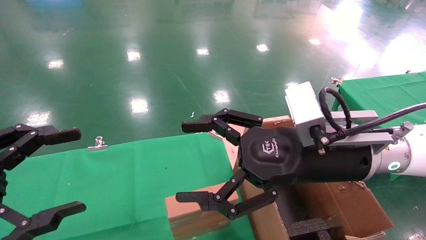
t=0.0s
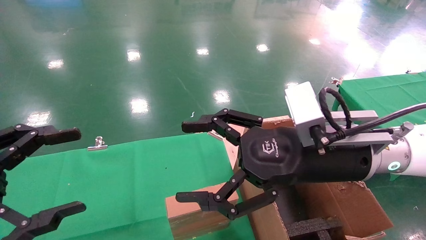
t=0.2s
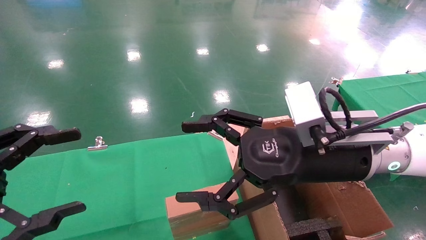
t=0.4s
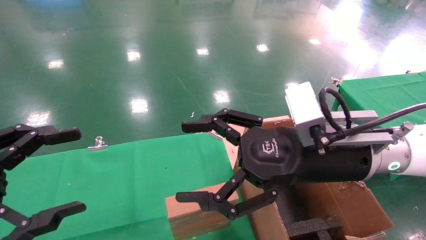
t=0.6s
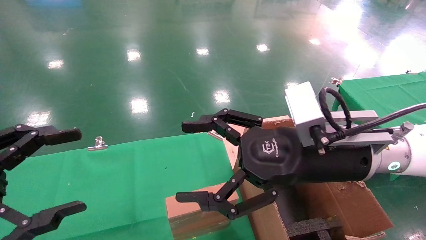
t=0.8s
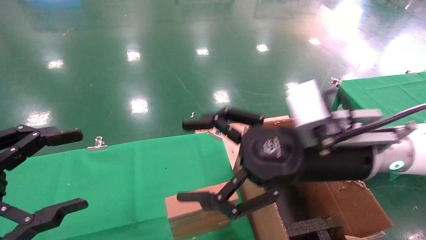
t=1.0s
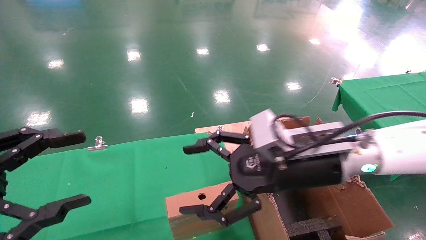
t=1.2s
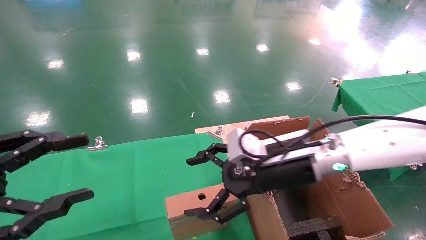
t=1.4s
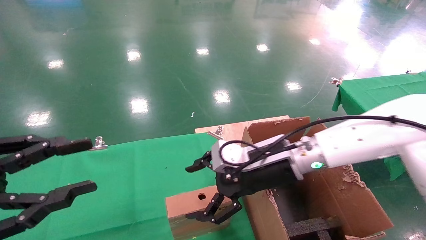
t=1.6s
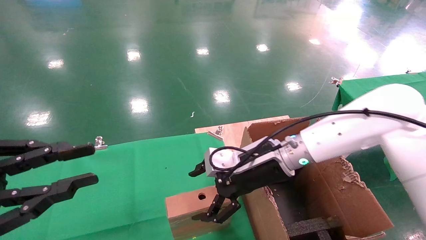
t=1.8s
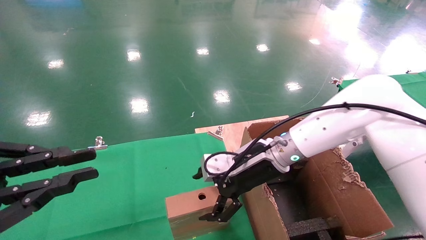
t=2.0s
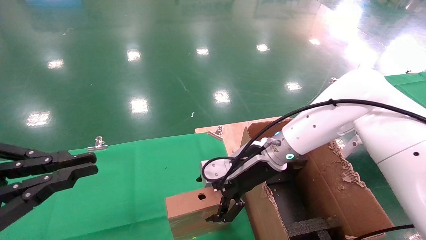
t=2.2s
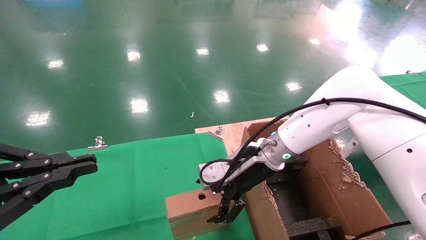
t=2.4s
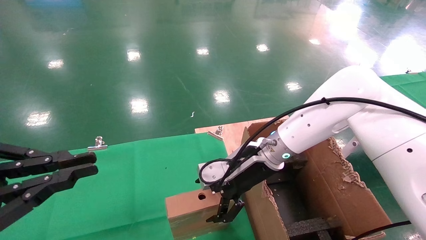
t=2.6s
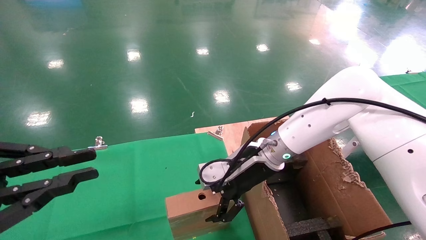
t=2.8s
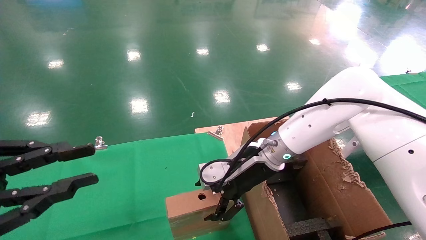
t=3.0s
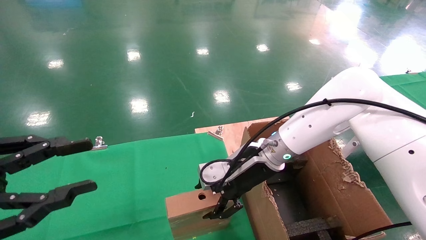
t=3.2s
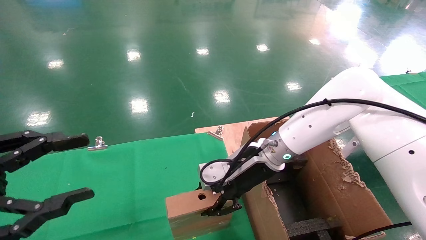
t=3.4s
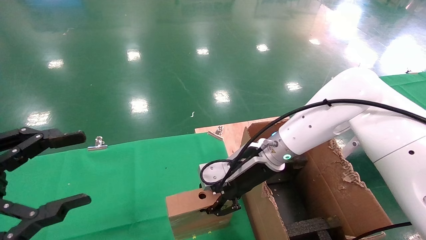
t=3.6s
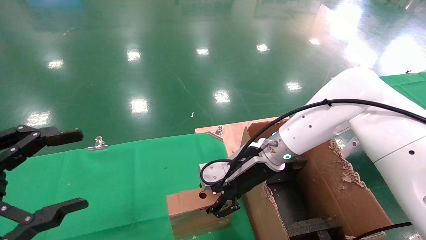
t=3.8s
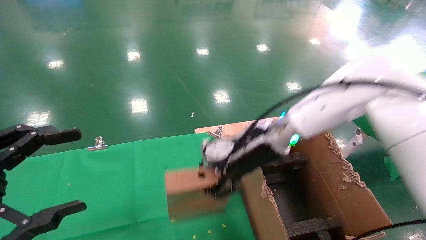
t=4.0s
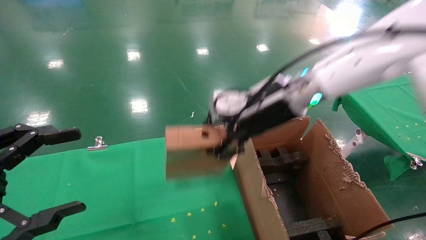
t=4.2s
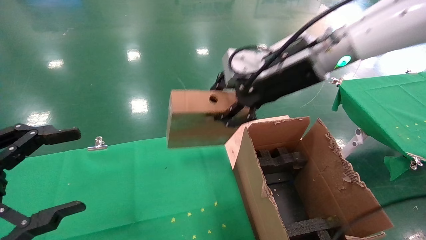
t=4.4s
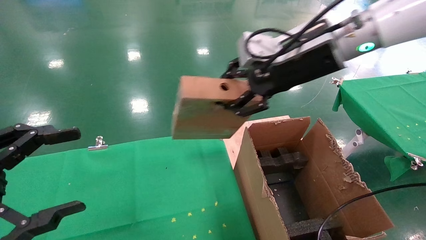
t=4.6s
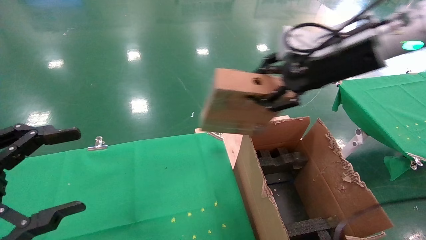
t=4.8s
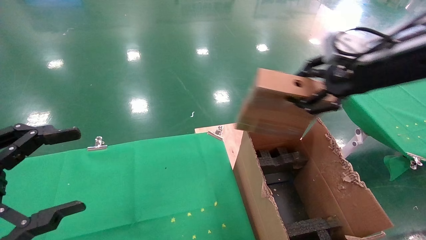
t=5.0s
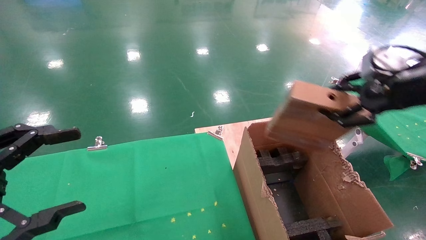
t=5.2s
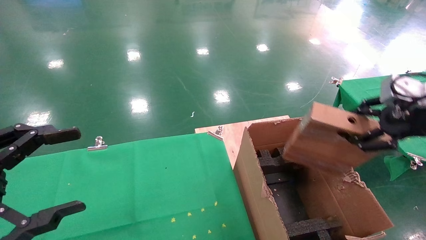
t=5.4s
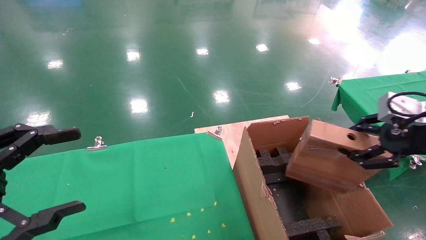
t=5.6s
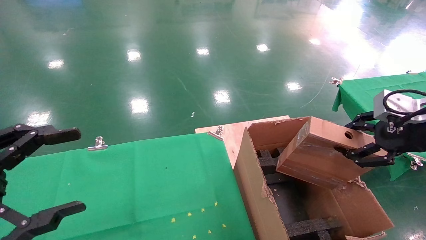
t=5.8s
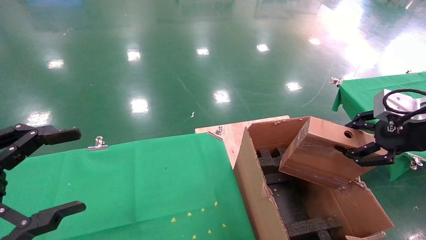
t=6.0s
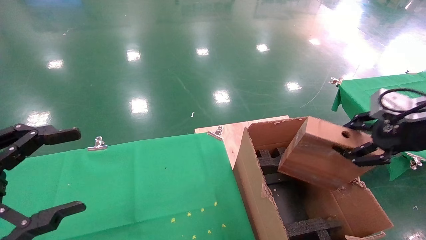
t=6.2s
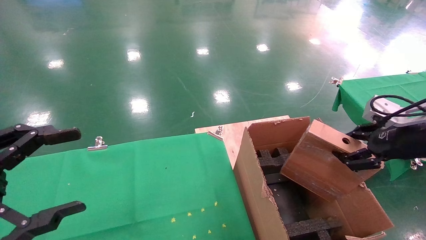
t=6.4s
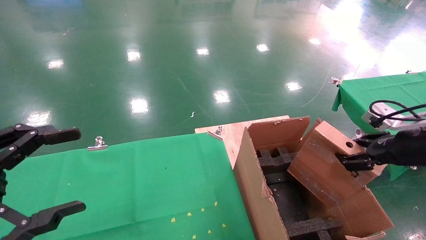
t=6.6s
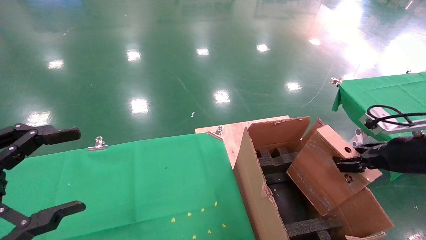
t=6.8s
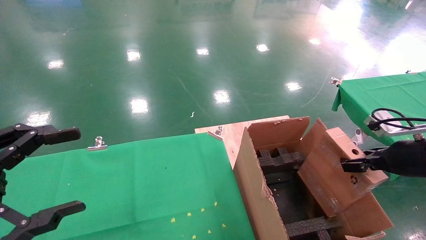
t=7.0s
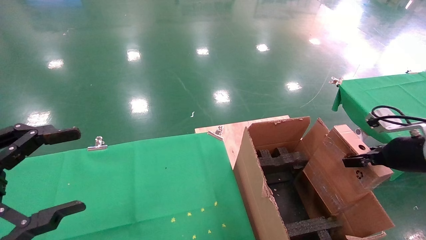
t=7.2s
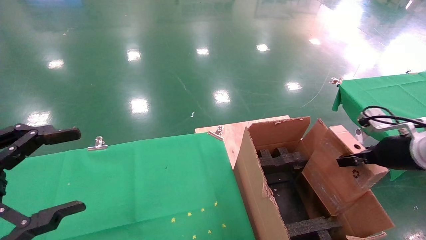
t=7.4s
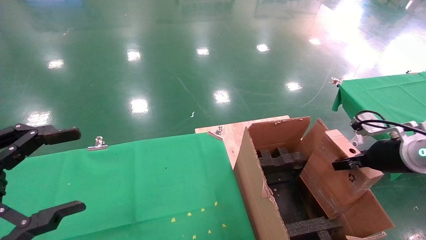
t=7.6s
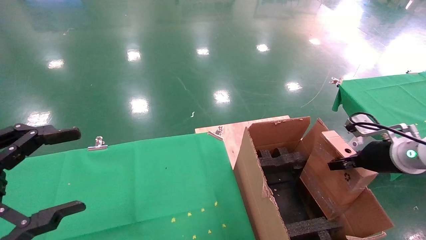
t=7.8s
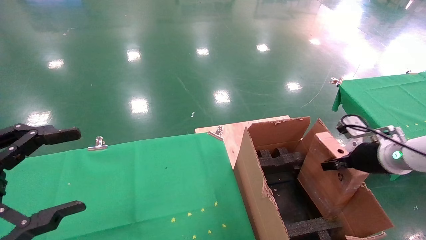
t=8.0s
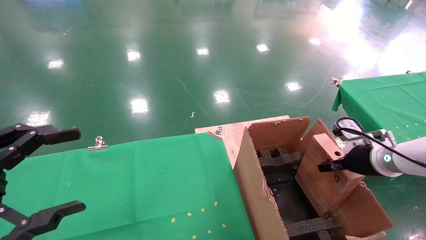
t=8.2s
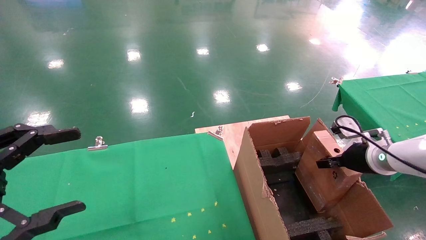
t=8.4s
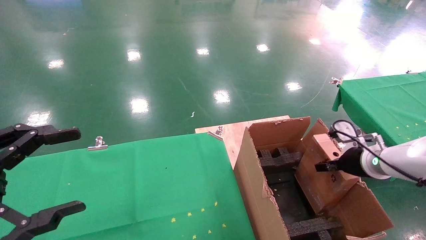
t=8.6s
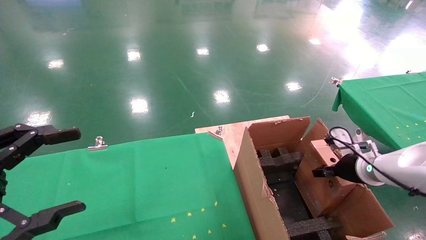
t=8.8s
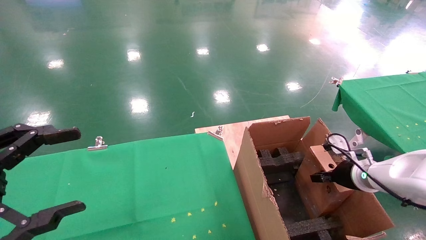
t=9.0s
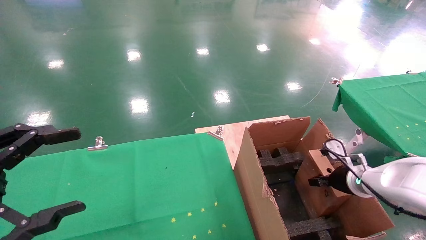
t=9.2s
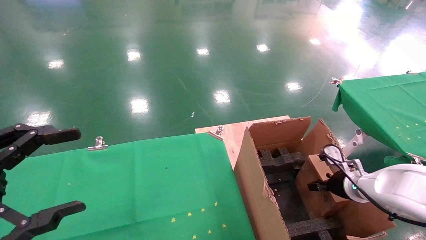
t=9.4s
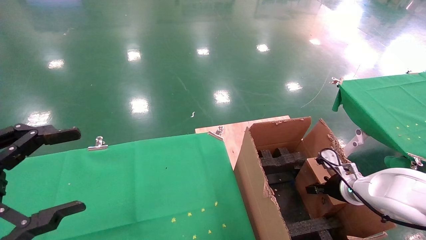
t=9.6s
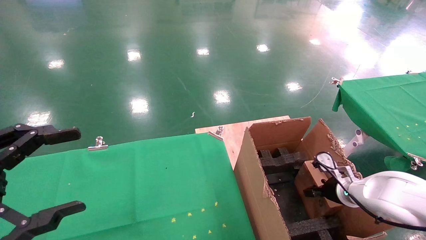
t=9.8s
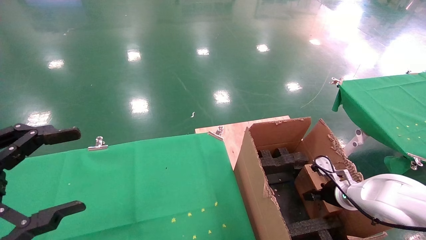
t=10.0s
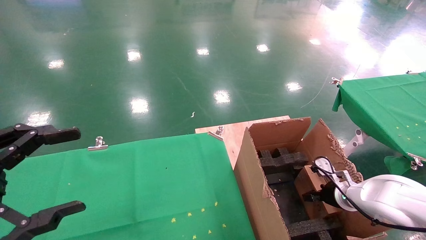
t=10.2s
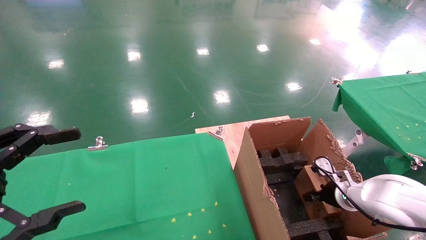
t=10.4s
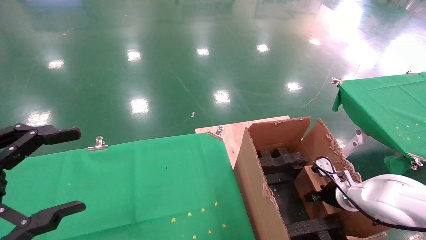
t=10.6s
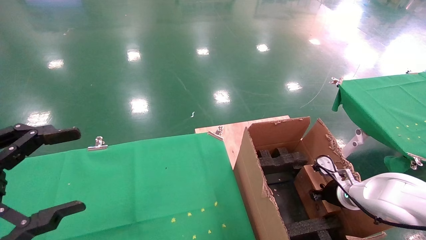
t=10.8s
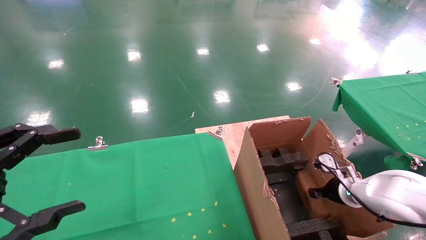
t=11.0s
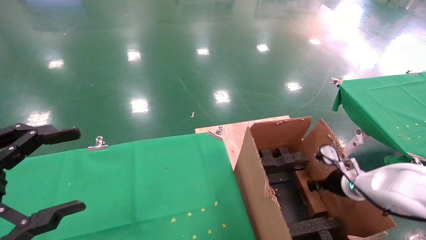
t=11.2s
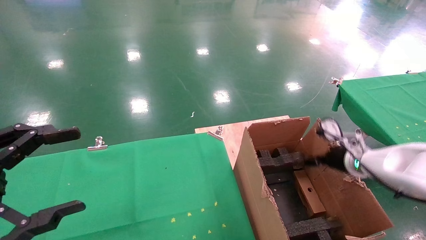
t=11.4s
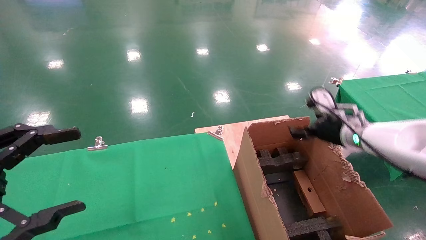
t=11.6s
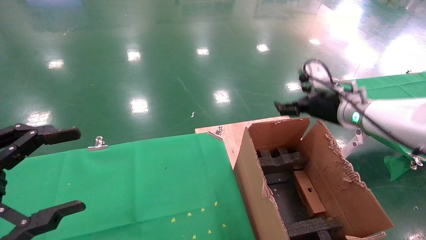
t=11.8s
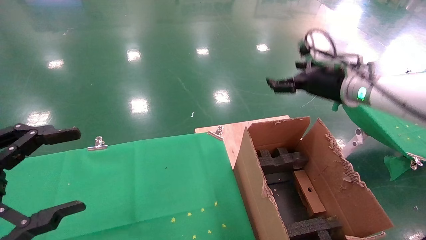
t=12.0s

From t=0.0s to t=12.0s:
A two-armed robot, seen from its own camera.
Task of the whole recording: using a robotic arm to pick up a cardboard box and palace it the carton.
Step, from t=1.2s to t=3.4s: Pick up the mouse and the power cord paper box.
Step, from t=3.6s to t=11.6s: Place the mouse and the power cord paper box into the container.
From t=0.0s to t=1.6s: The left gripper closes up. The right gripper goes roughly 10 cm forward and downward.
From t=1.6s to t=3.0s: The right gripper moves approximately 5 cm. Meanwhile the left gripper closes.
From t=3.0s to t=4.4s: The left gripper opens, while the right gripper goes approximately 20 cm upward, and closes up.
From t=4.4s to t=6.0s: The right gripper shifts roughly 25 cm to the right and backward.
From t=6.0s to t=7.6s: The right gripper shifts approximately 10 cm downward and forward.
From t=7.6s to t=9.0s: The right gripper travels downward and forward by some 10 cm.
From t=9.0s to t=10.4s: The right gripper heads downward, covering roughly 10 cm.
From t=10.4s to t=12.0s: The right gripper heads upward, covering about 30 cm, and opens.

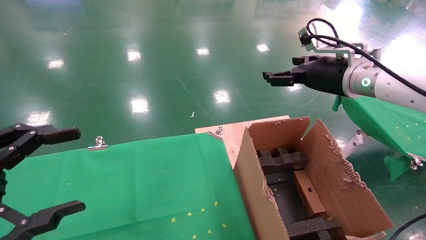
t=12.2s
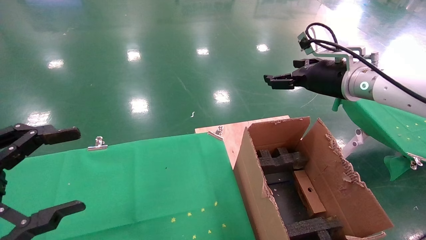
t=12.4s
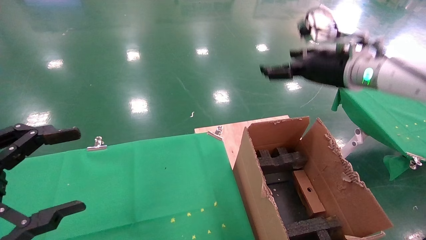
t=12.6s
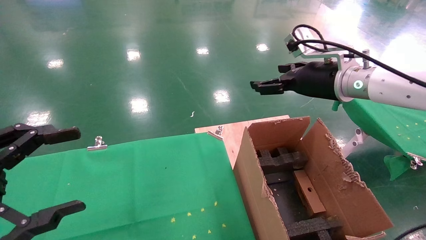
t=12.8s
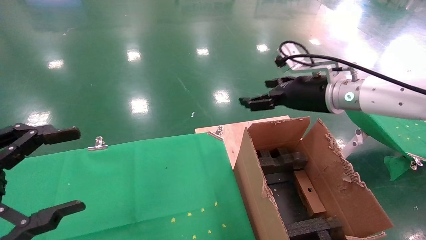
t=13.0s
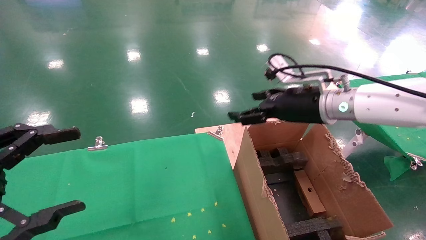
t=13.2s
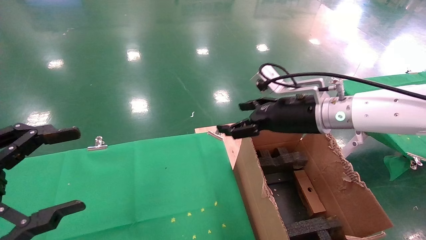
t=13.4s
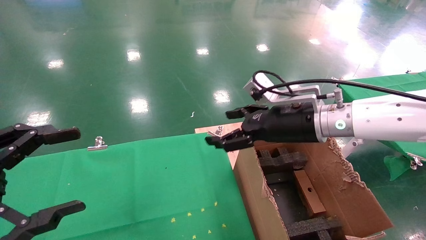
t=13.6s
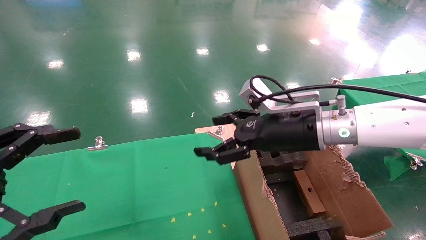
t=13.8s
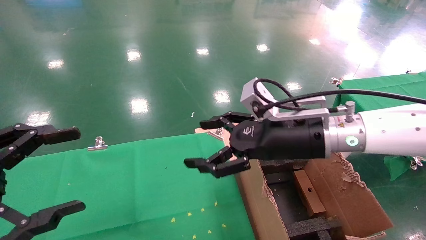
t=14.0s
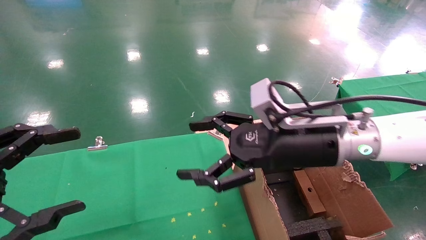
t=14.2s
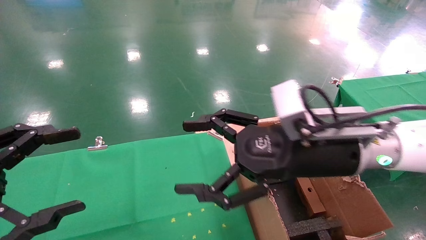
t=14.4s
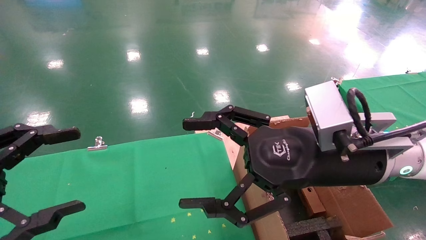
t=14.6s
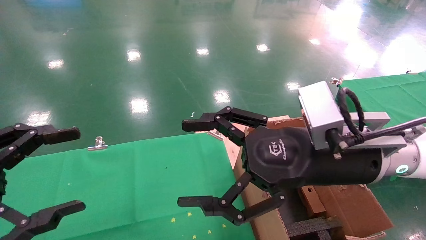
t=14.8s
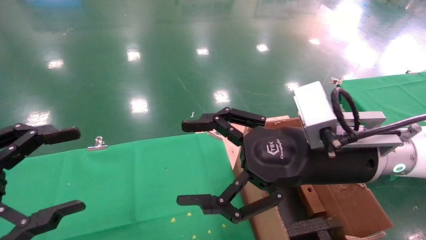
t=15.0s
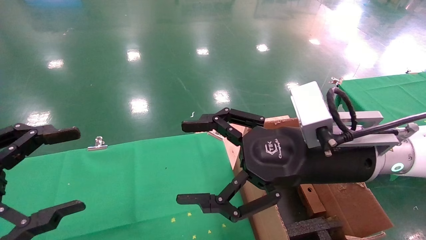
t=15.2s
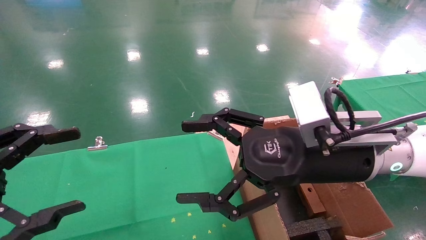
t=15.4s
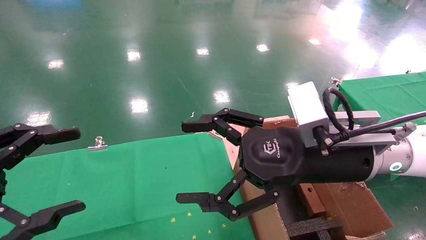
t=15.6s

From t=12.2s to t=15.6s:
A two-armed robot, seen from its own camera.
Task of the whole recording: using a robotic arm to pick up a cardboard box and palace it the carton.
From t=12.2s to t=13.8s: The right gripper is displaced to the left, downward and backward by roughly 15 cm.
From t=13.8s to t=15.6s: The right gripper moves backward, roughly 10 cm.
